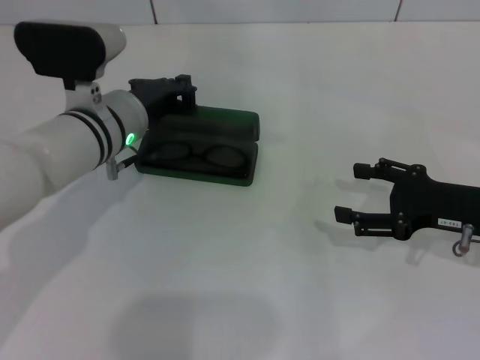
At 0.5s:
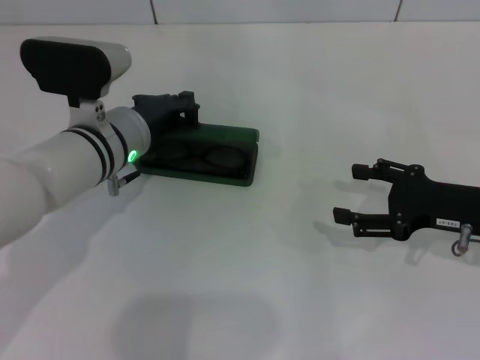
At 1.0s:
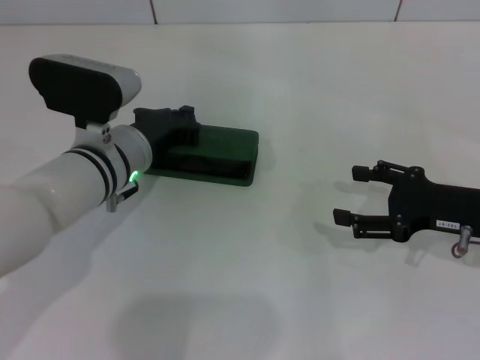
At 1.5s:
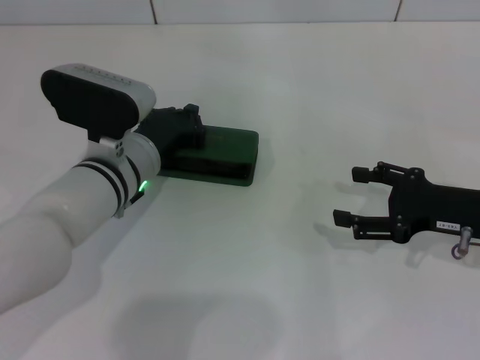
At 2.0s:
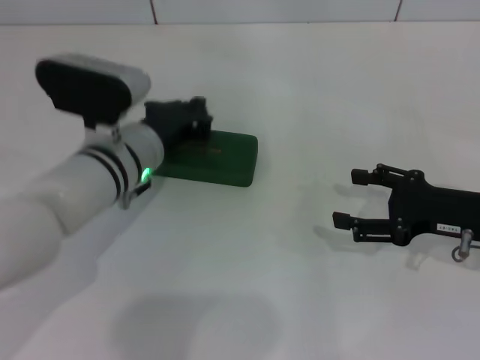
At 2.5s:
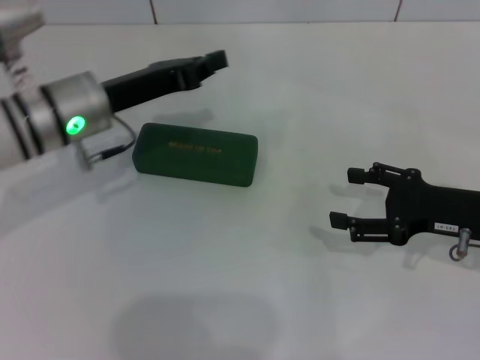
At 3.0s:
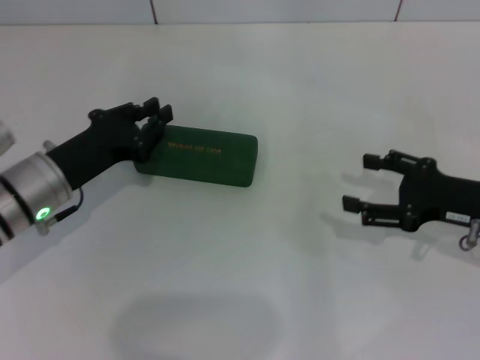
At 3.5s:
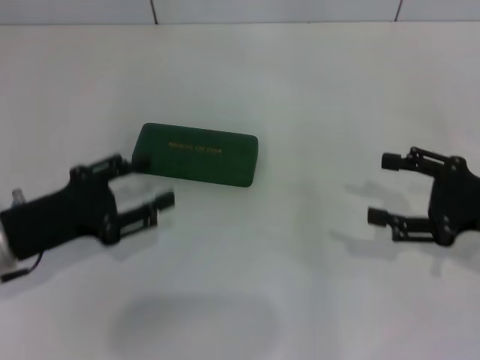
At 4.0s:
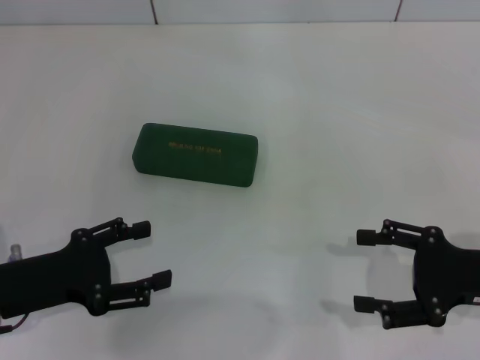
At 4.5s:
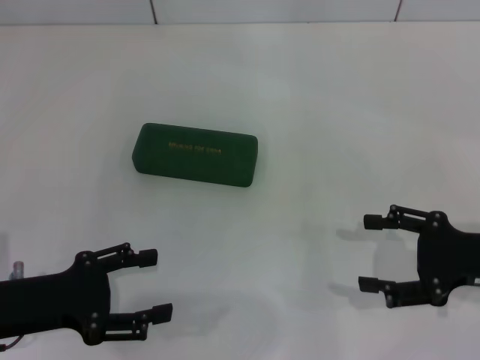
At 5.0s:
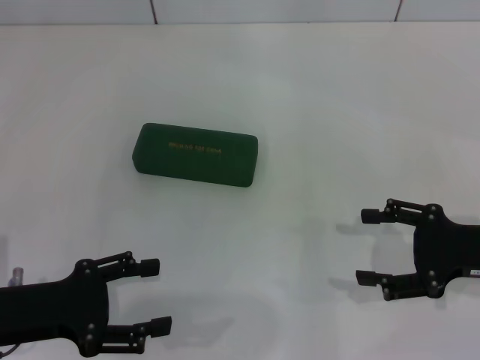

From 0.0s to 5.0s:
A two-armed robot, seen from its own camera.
From 0.0s to 2.5s: The left gripper ends up roughly 5 cm from where it was.
From 2.5s to 5.0s: The left gripper heads backward and to the left, covering approximately 20 cm, and opens its fingers.
